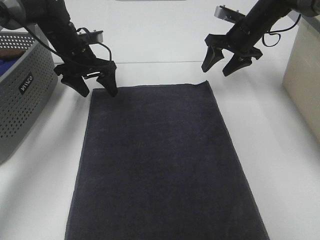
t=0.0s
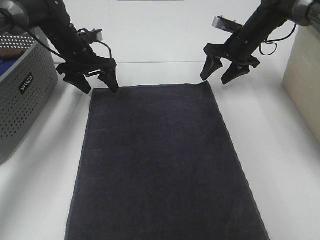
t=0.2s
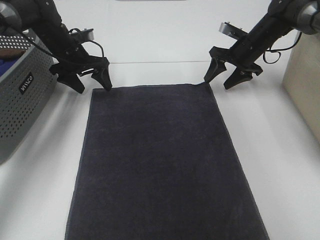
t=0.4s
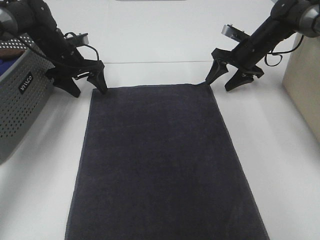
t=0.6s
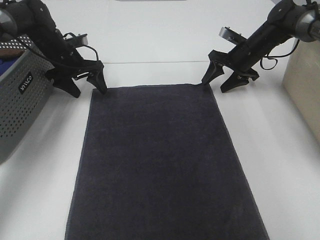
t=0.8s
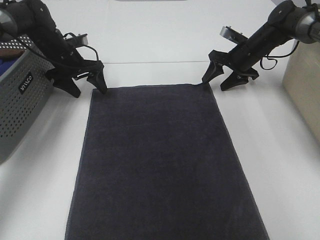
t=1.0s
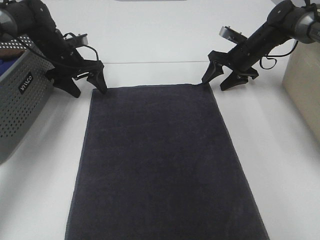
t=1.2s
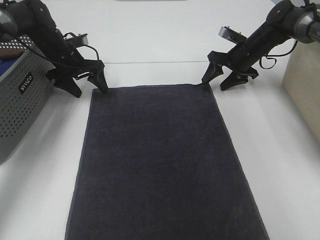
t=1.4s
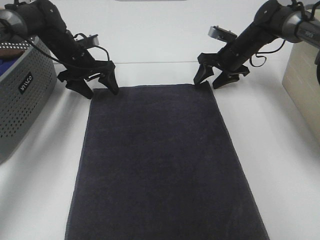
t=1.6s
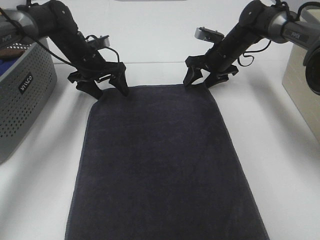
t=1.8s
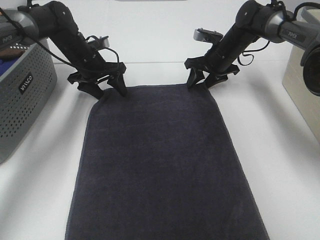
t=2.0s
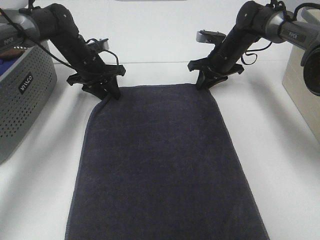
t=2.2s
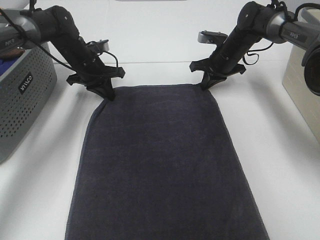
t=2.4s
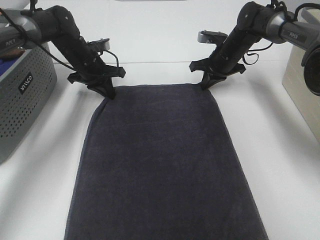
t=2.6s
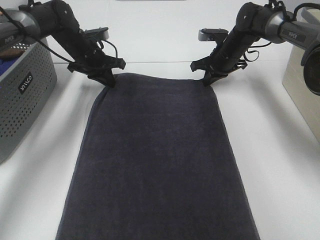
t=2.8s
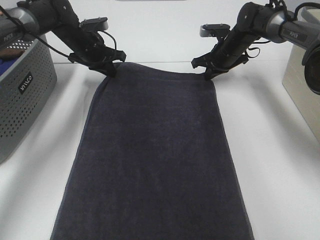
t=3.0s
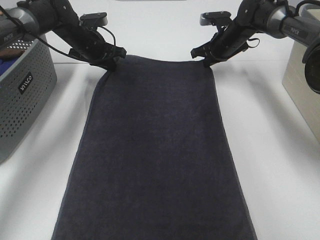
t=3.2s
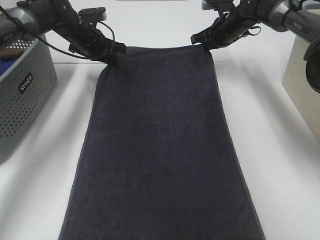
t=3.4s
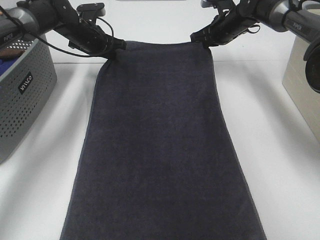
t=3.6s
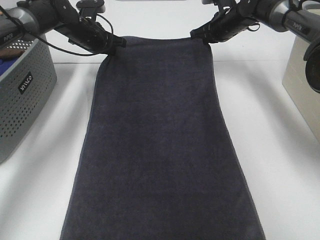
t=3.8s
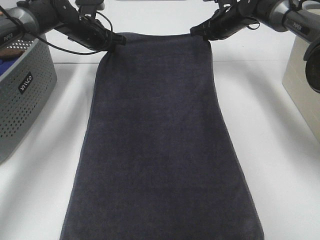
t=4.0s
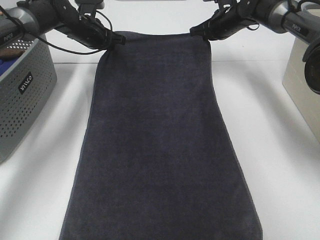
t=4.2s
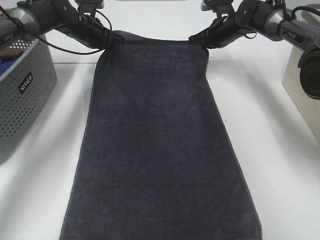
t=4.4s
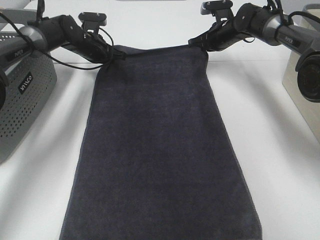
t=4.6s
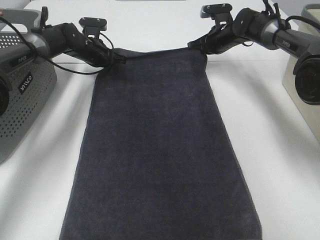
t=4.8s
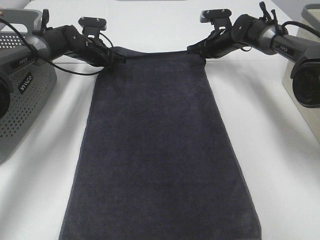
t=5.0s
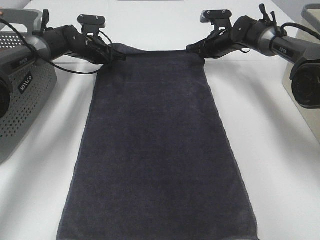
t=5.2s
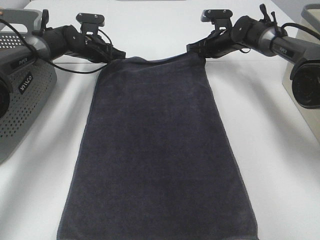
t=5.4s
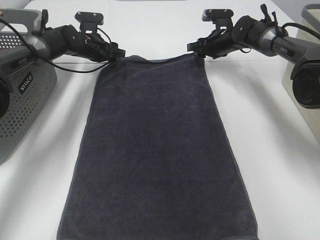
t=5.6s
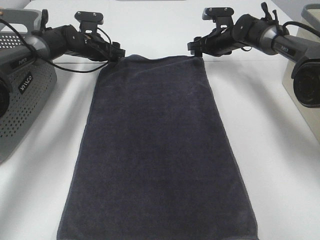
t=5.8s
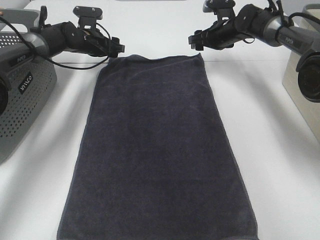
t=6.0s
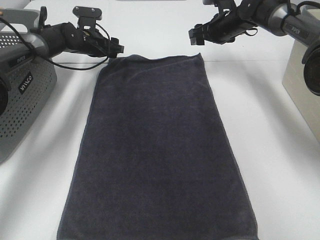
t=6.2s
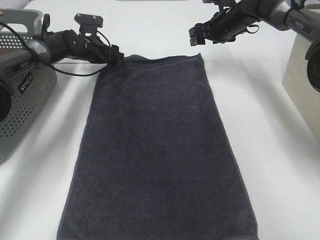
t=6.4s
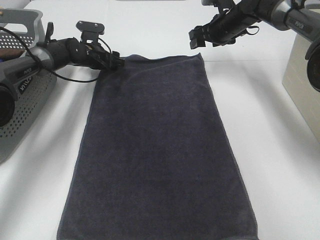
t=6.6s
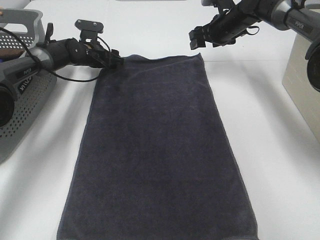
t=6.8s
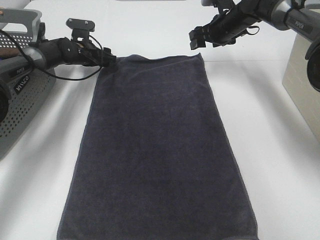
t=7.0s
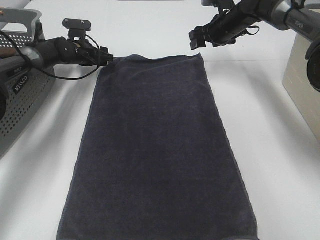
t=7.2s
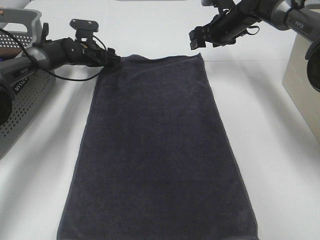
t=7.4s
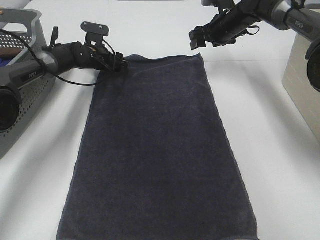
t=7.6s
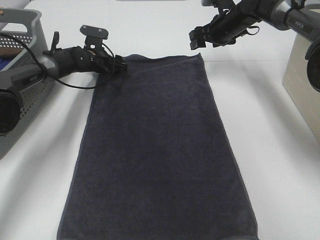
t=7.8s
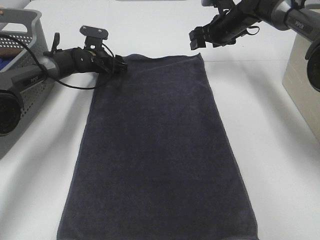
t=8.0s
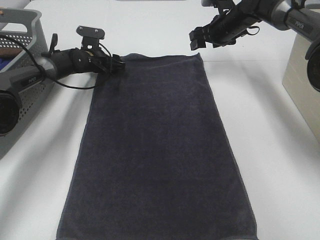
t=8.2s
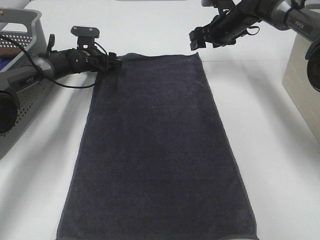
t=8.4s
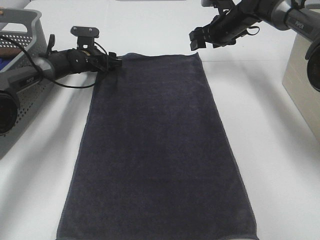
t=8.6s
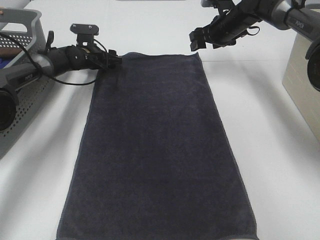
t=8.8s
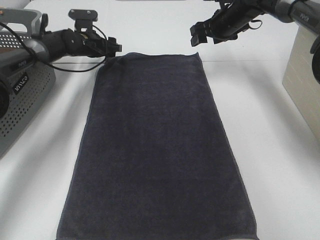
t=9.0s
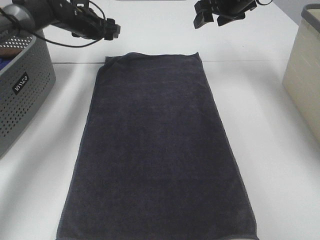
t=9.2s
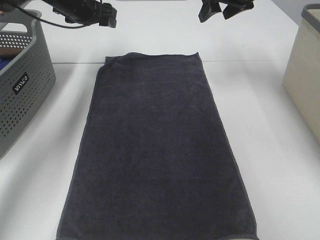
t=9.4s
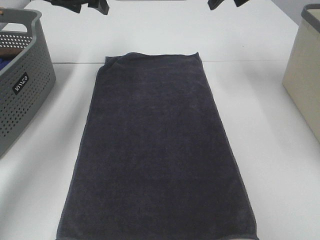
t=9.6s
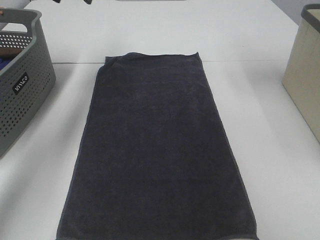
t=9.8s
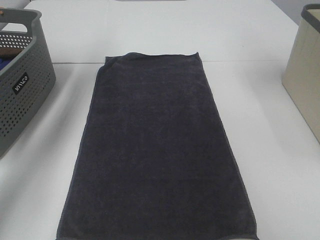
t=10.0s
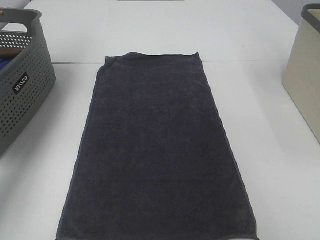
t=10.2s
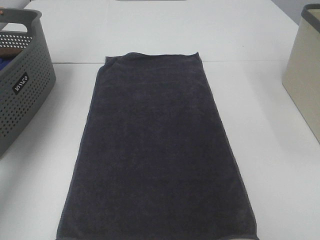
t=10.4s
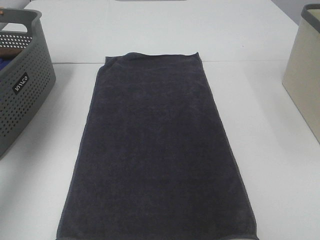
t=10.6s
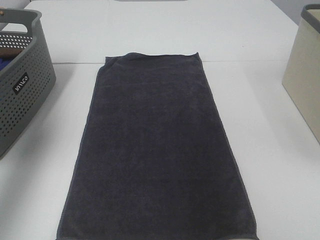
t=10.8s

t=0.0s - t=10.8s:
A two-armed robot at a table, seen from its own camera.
Task of the whole recording: Remove the towel and place it.
Step, t=0.0s - t=2.4s: Left hand:adjust the gray towel.
t=0.0s - t=1.6s: The right gripper is displaced downward by some 5 cm.
t=1.6s - t=3.0s: The right gripper closes up; the left gripper closes up.
t=4.6s - t=6.2s: The right gripper opens its fingers; the left gripper opens its fingers.
t=6.2s - t=7.8s: The left gripper heads downward, covering about 5 cm.
t=7.8s - t=9.2s: The two grippers go about 10 cm upward.
t=9.2s - t=10.8s: The left gripper shifts approximately 40 cm backward, upward and to the left; the right gripper moves backward and upward, some 35 cm.

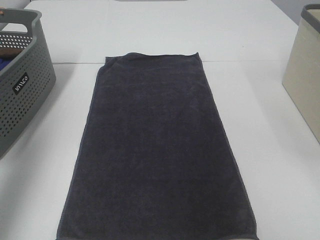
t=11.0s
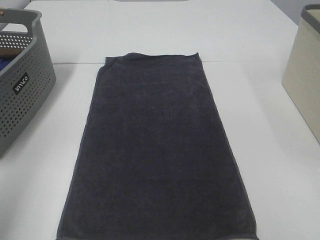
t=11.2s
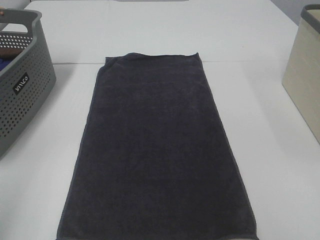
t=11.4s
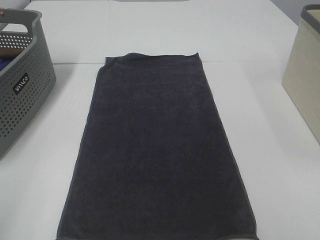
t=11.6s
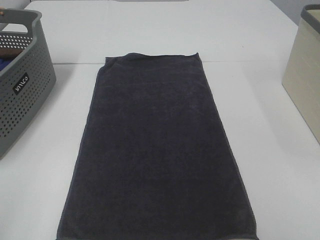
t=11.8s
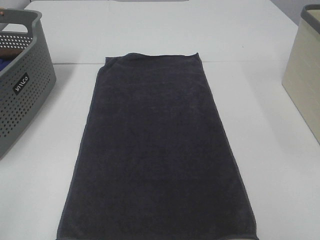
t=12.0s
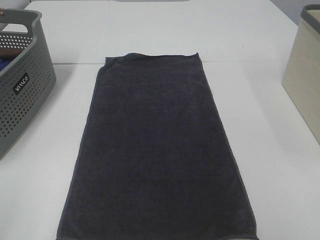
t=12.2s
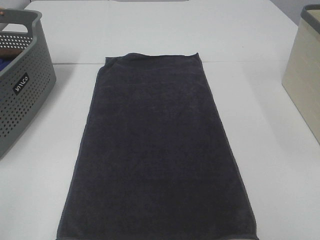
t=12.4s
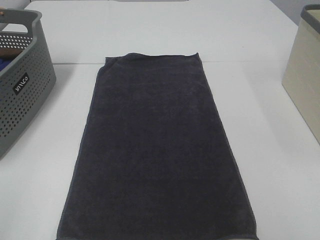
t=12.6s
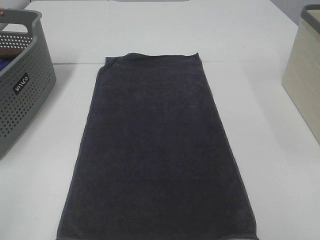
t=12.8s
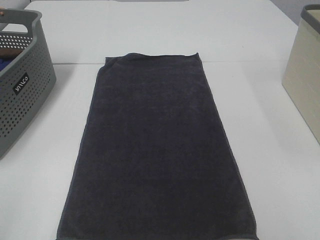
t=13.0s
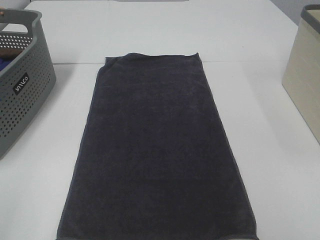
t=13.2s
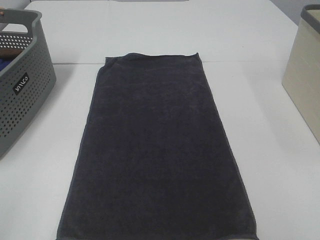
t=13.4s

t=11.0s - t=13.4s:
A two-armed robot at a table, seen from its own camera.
Task of the whole recording: Remove the towel and place it.
t=11.0s - t=12.2s: The left gripper travels backward and downward by approximately 25 cm.
t=12.2s - t=13.4s: The two grippers keep their place.

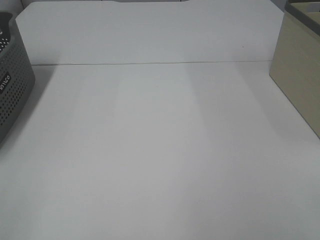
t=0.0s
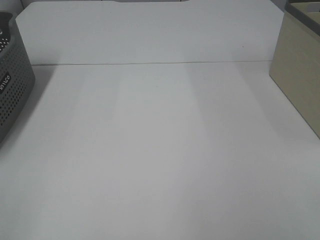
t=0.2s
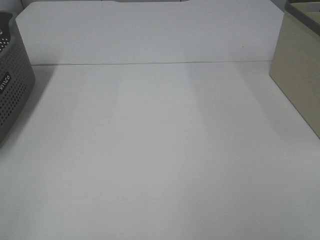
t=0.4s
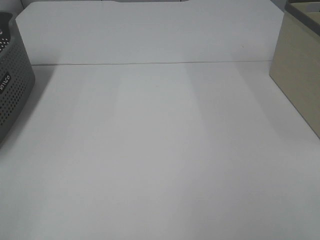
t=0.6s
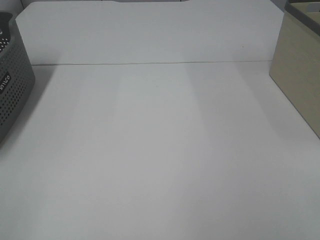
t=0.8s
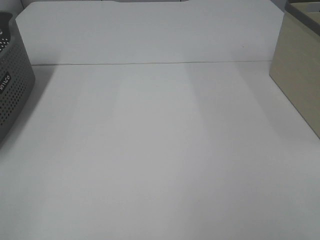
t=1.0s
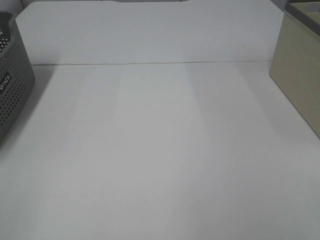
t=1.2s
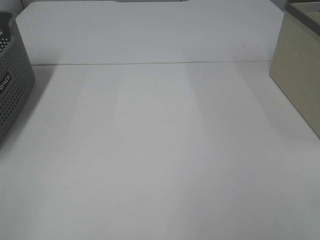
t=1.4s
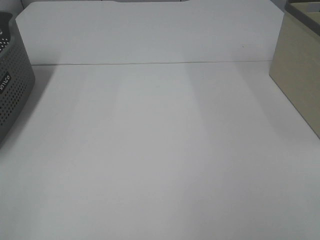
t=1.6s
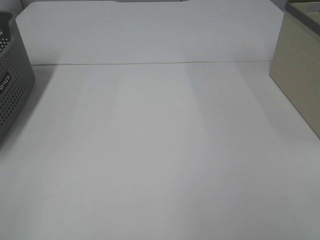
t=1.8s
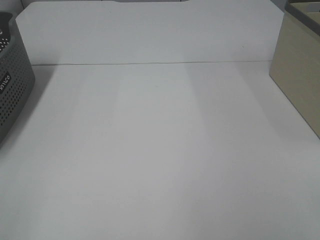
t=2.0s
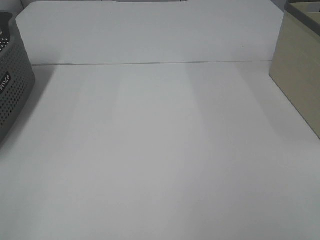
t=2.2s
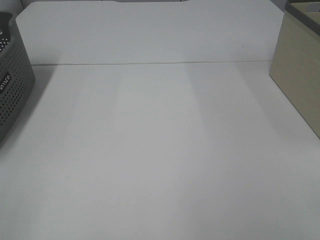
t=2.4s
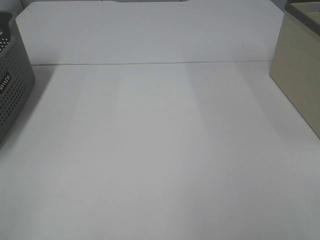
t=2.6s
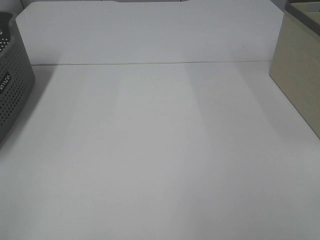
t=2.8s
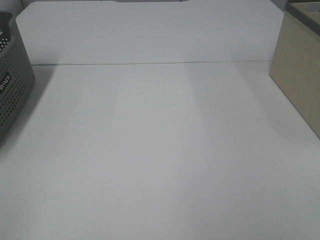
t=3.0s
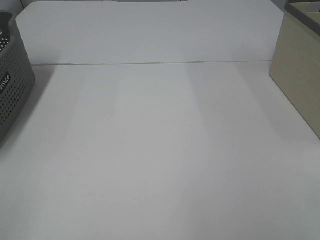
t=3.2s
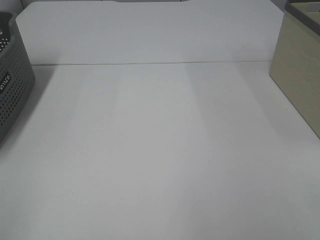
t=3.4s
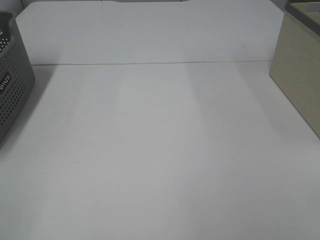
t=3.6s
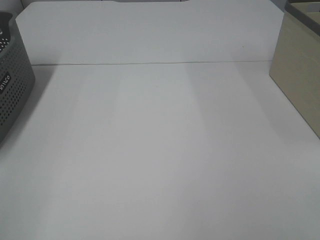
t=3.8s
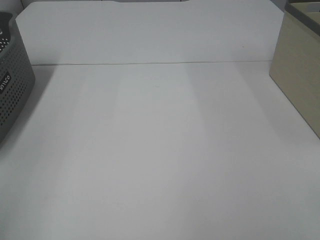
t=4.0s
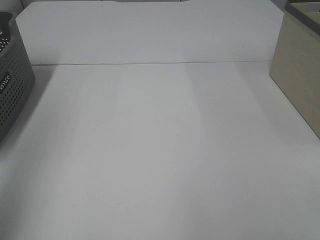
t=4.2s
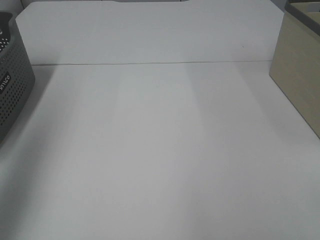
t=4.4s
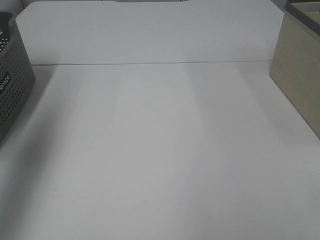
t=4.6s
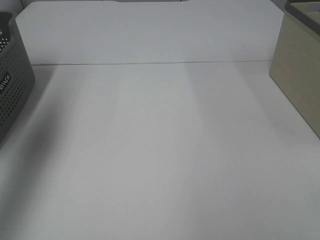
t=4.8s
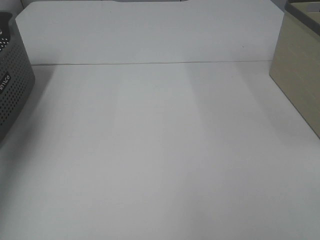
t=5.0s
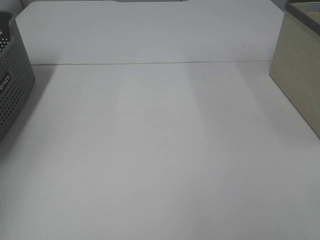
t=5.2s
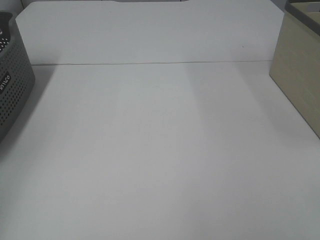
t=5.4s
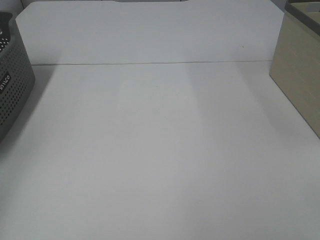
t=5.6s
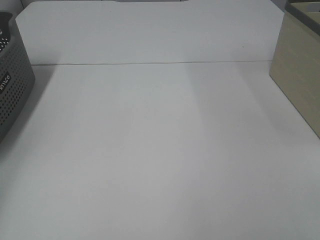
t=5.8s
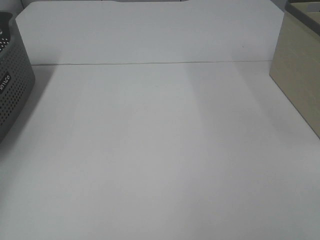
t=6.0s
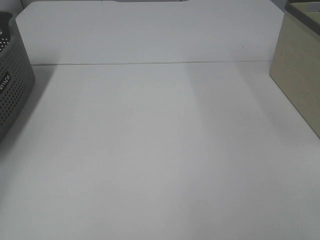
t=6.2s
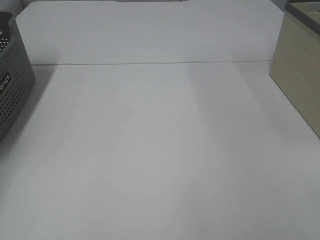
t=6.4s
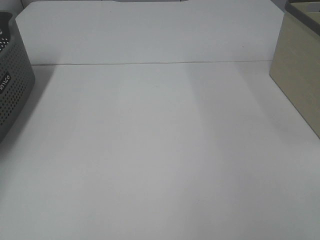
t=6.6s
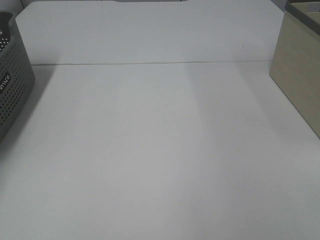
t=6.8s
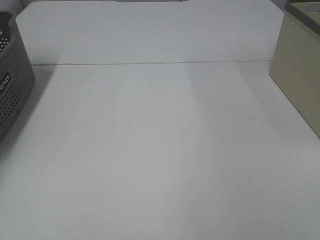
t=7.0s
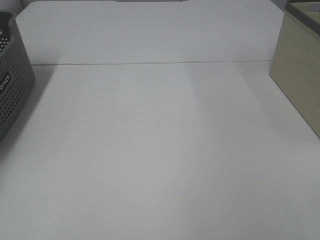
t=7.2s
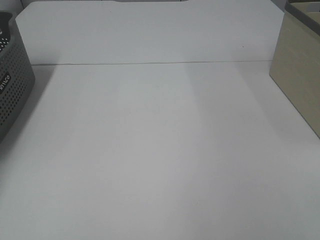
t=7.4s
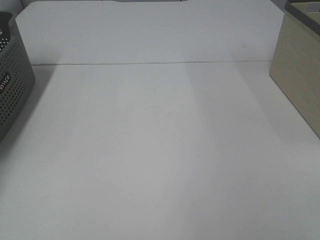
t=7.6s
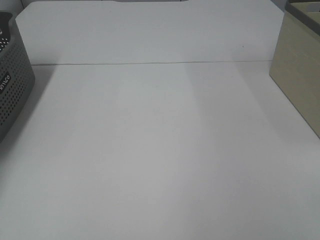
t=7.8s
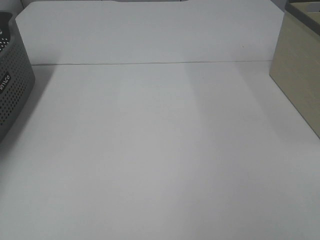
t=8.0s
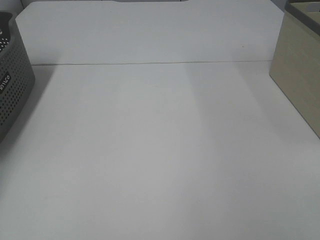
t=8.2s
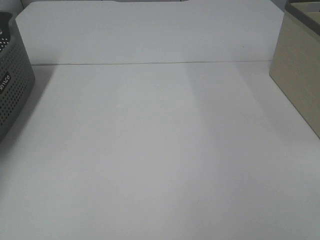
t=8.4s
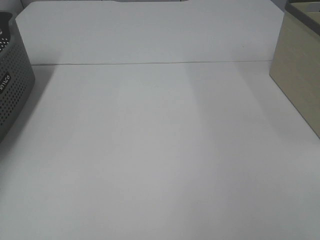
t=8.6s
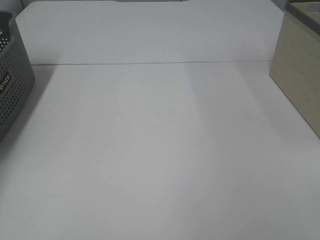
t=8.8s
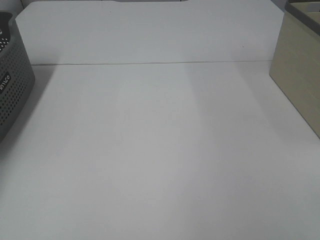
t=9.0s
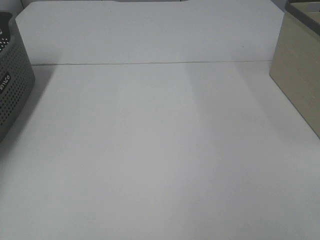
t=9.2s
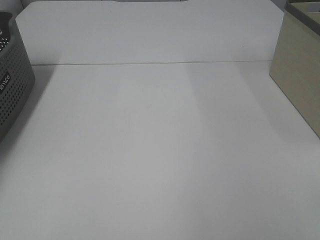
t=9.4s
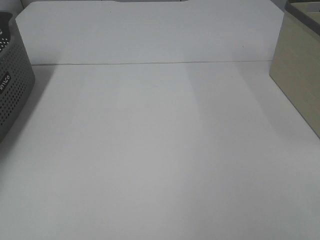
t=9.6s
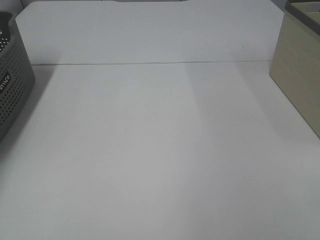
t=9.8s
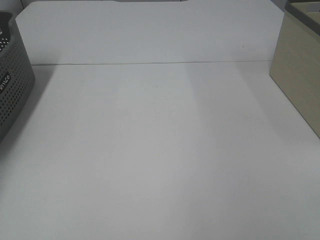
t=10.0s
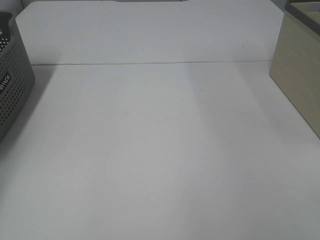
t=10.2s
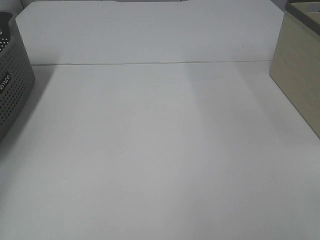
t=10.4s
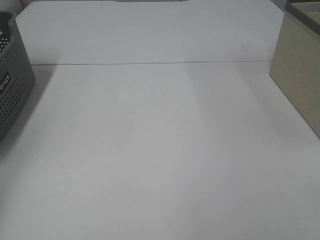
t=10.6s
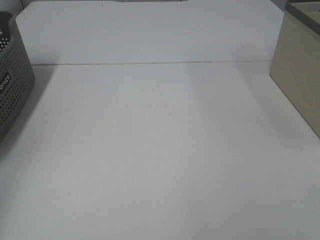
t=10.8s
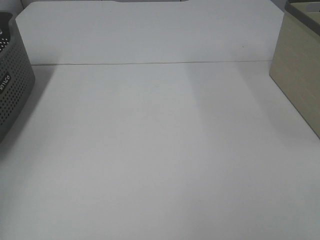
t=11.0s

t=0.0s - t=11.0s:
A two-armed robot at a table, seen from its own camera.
Task of the whole recording: Remove the towel and place it.
t=0.0s - t=1.6s: The two grippers keep their place.
t=3.2s - t=4.8s: The left gripper heads forward and upward, covering roughly 35 cm.
t=4.8s - t=6.2s: The left gripper is displaced to the left and downward by approximately 20 cm.
